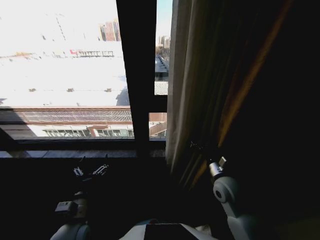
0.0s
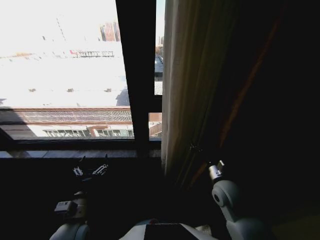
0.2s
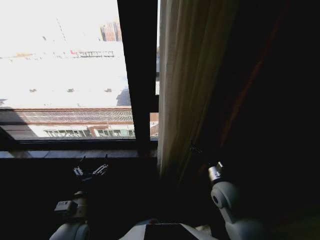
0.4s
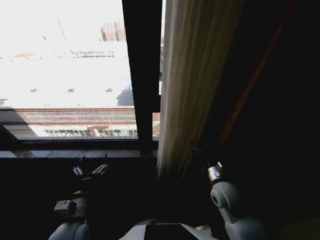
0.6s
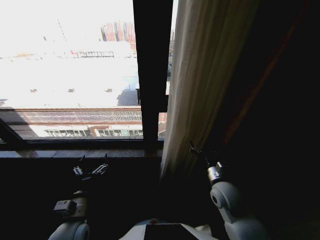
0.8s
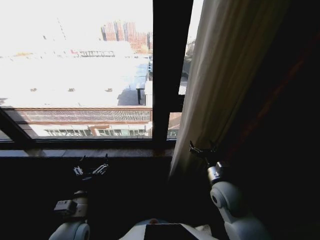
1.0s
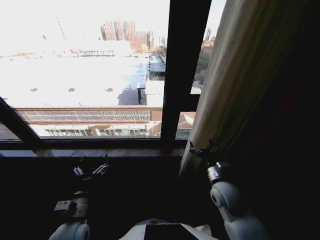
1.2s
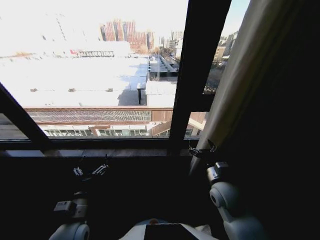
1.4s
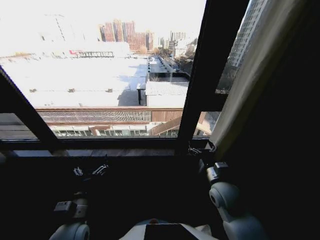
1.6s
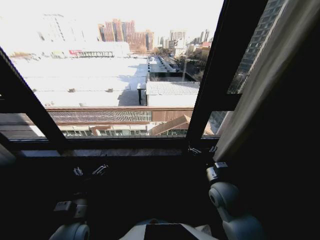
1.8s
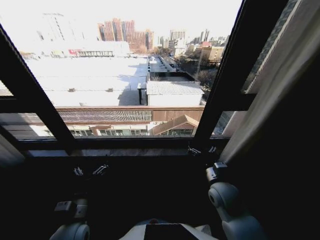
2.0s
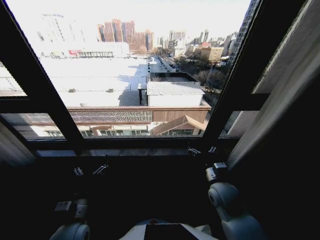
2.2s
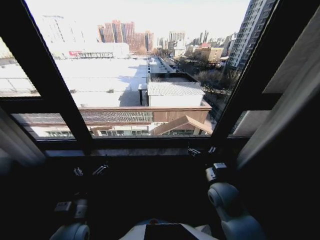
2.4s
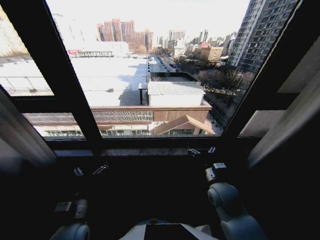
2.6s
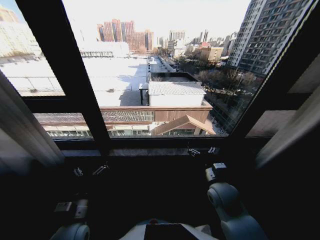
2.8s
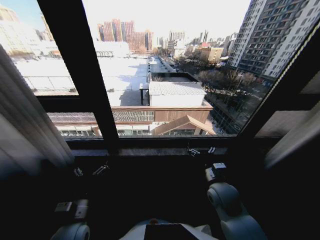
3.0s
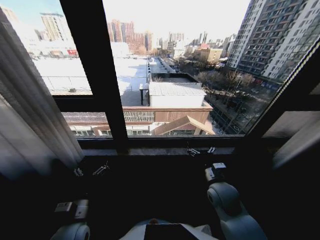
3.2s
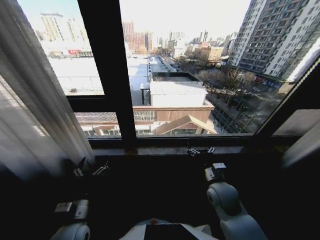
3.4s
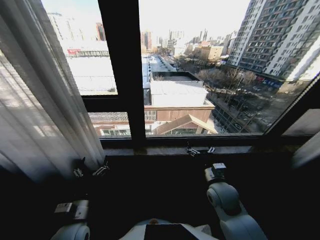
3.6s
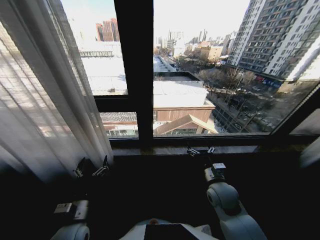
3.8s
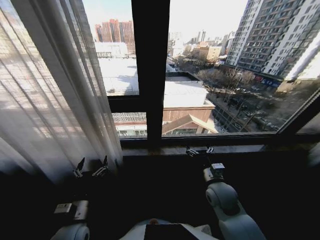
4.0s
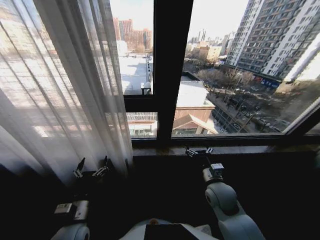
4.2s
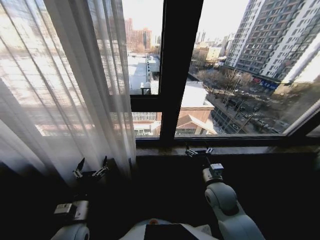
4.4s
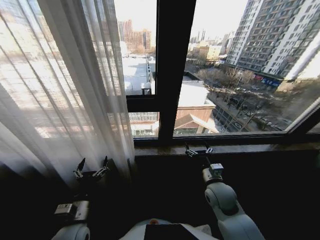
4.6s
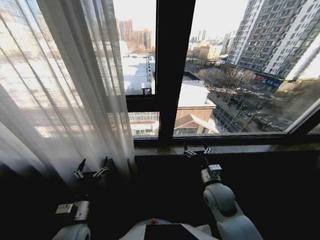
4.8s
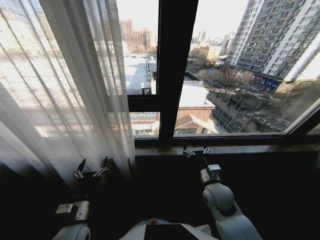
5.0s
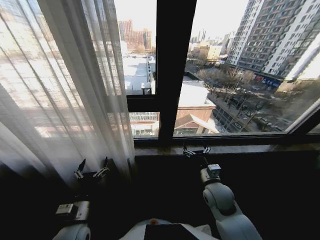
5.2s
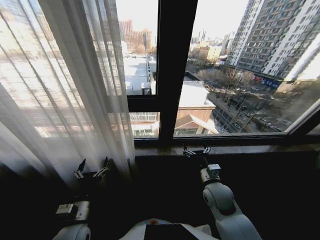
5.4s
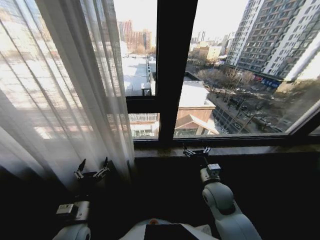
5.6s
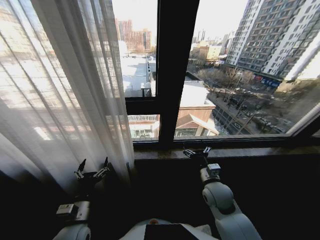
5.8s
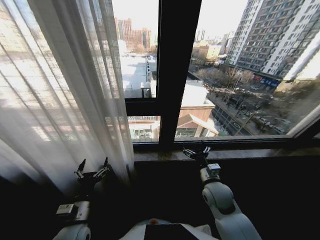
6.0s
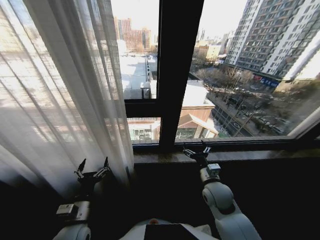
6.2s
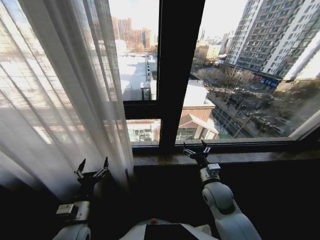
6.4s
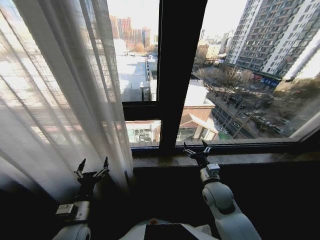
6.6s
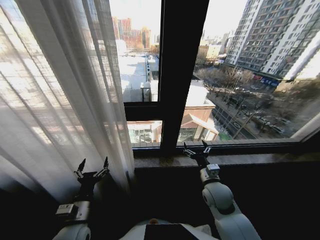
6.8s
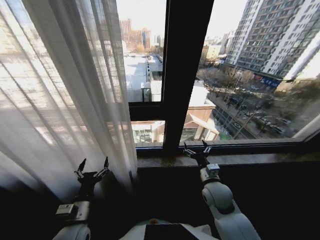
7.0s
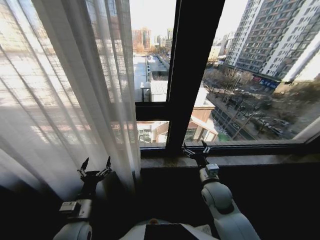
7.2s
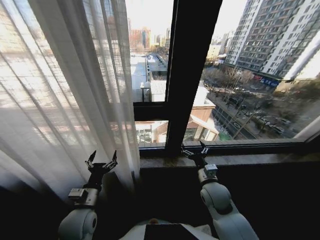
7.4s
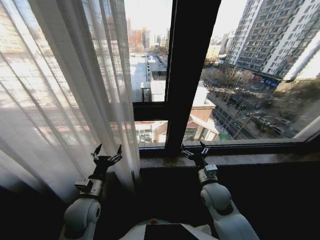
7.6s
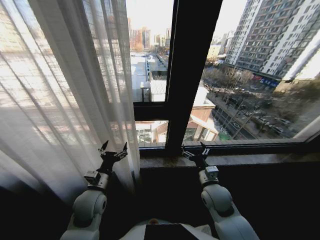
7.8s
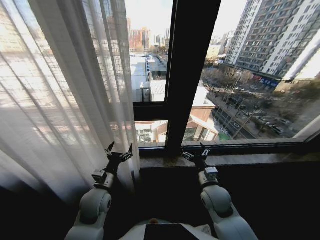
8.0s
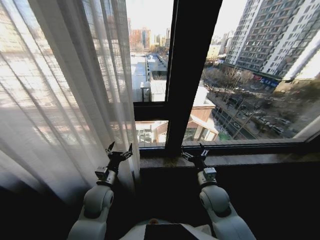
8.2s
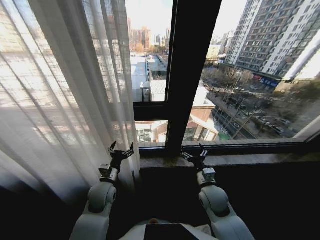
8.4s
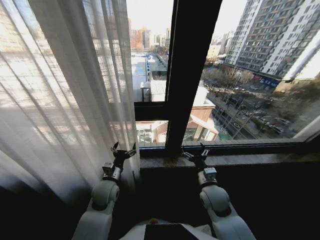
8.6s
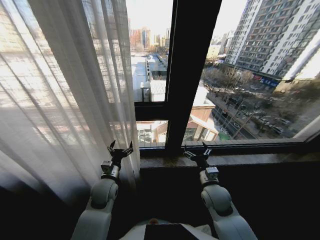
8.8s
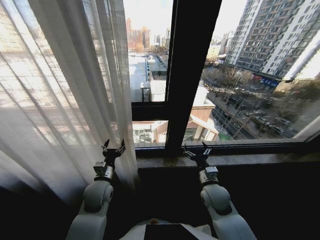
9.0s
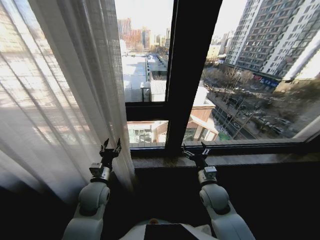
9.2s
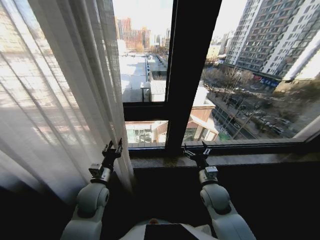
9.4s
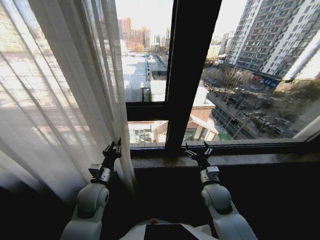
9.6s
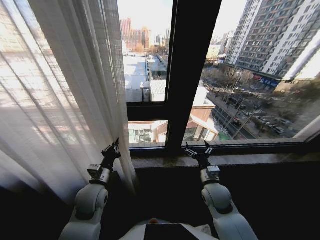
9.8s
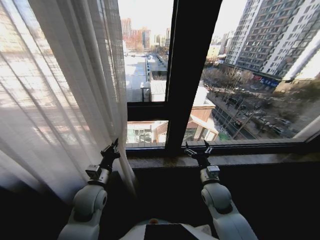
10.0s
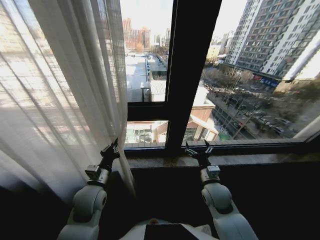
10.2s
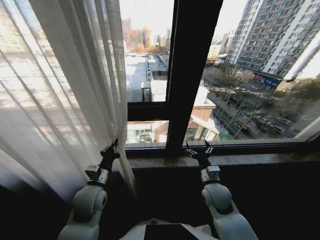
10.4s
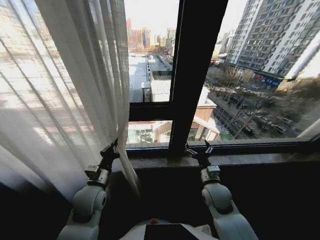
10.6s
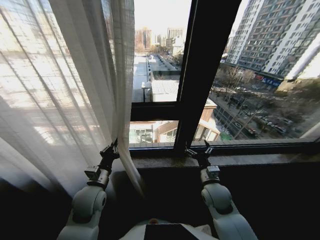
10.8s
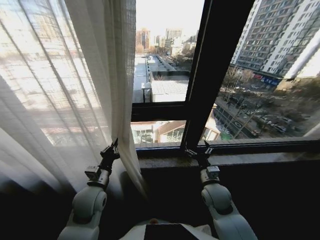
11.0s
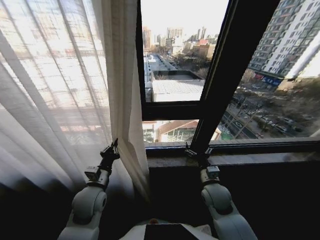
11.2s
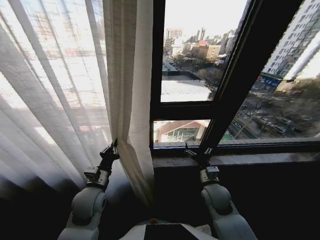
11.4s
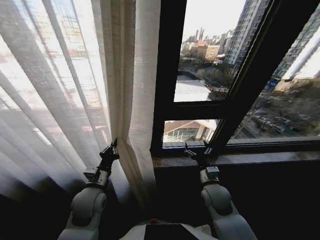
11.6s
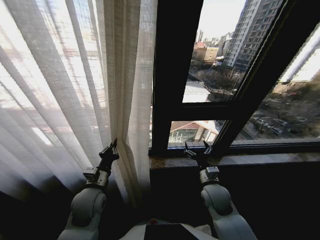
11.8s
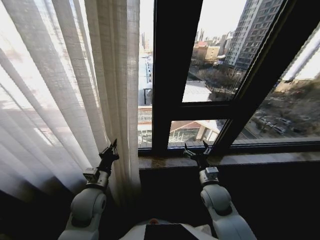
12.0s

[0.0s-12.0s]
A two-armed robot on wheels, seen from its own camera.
Task of the whole recording: Open the curtains by pulling them apart, changing their state from closed to fully open.
6.0s to 7.6s: The left gripper shifts approximately 5 cm forward.
7.6s to 9.0s: The left gripper moves forward, approximately 5 cm.
9.0s to 10.4s: The left gripper closes its fingers.

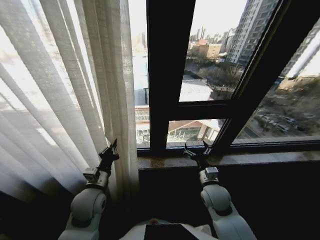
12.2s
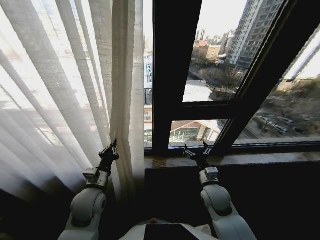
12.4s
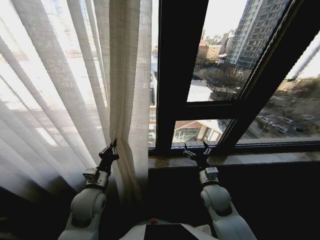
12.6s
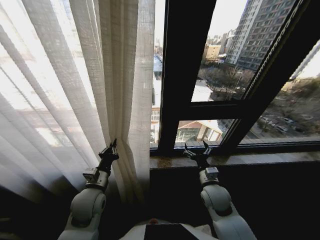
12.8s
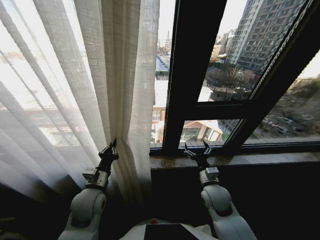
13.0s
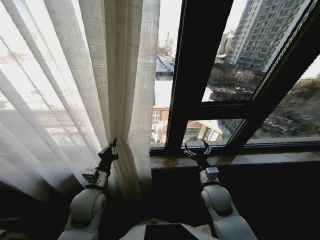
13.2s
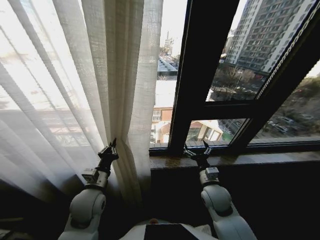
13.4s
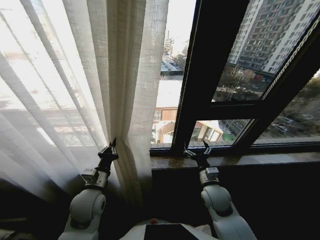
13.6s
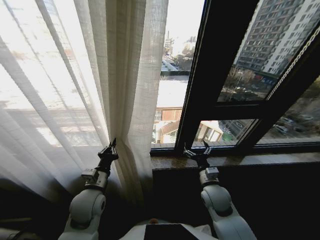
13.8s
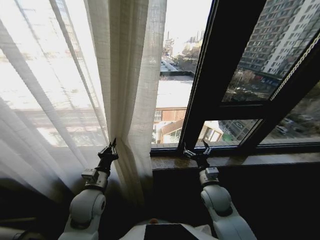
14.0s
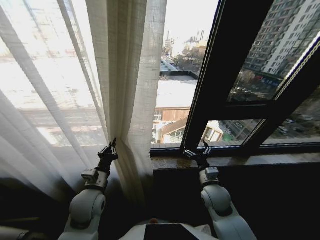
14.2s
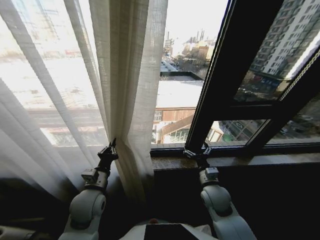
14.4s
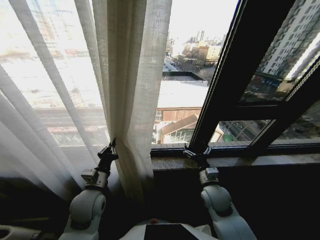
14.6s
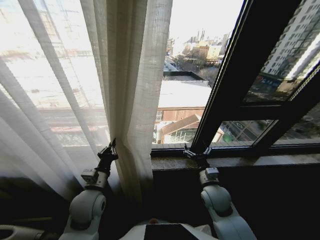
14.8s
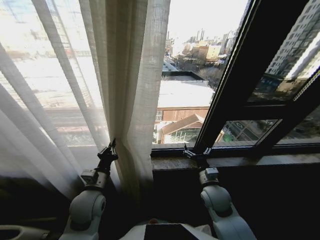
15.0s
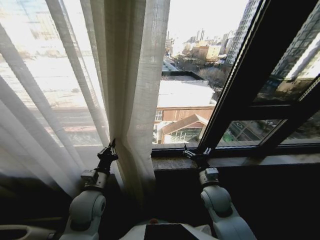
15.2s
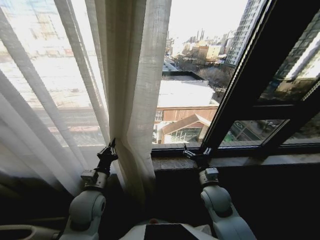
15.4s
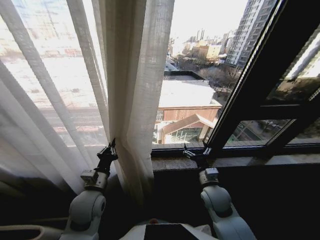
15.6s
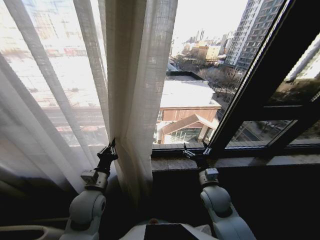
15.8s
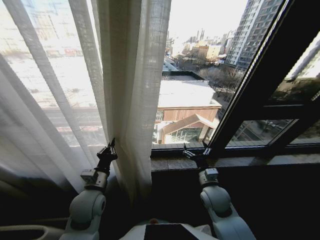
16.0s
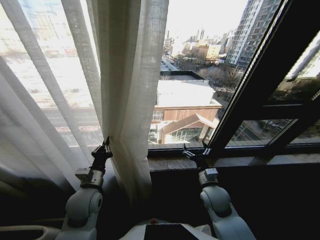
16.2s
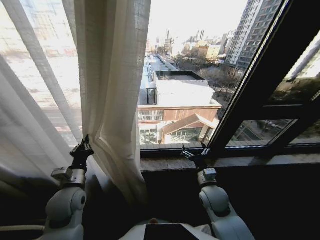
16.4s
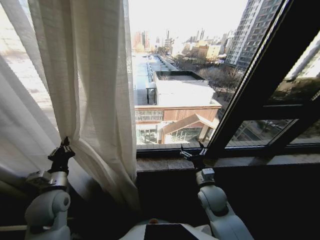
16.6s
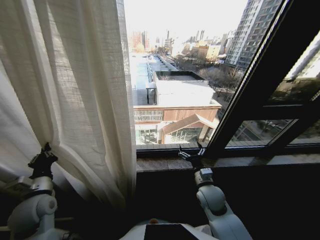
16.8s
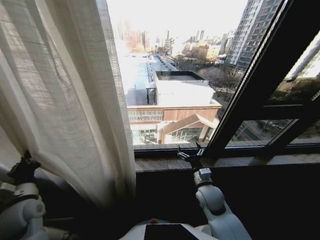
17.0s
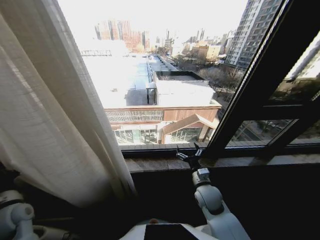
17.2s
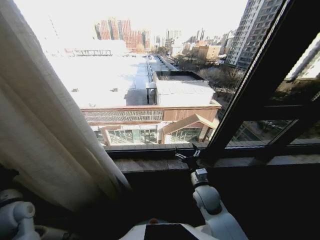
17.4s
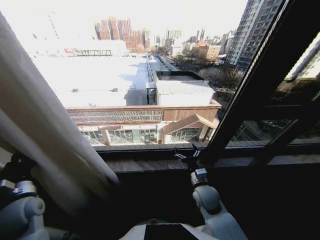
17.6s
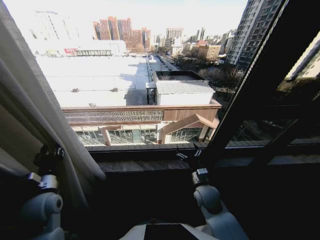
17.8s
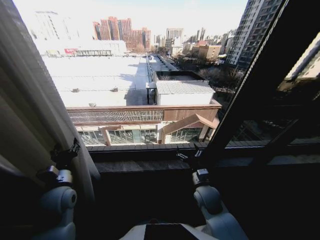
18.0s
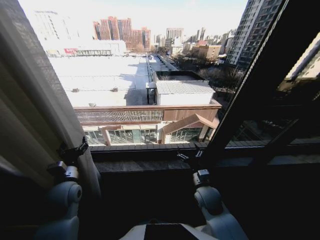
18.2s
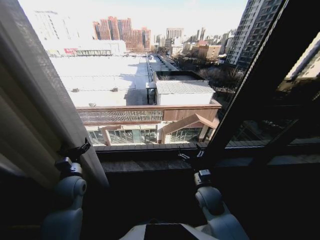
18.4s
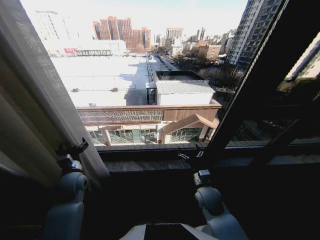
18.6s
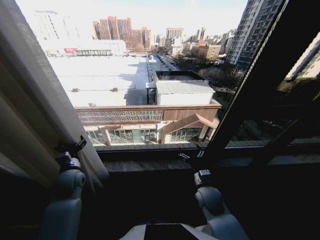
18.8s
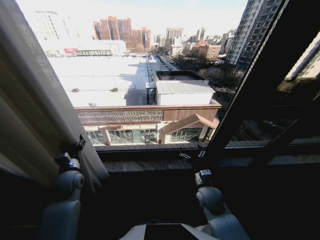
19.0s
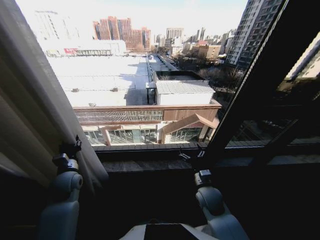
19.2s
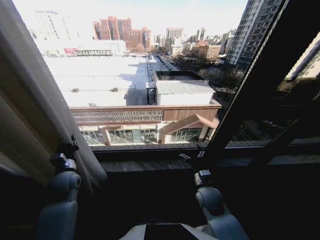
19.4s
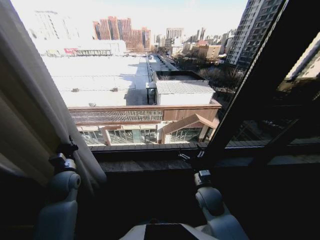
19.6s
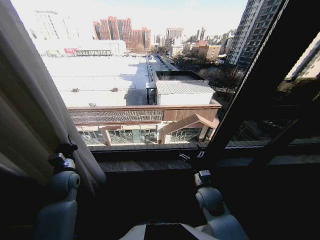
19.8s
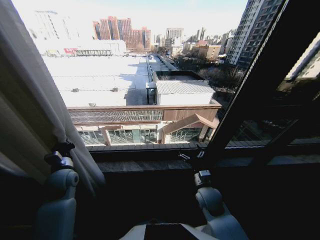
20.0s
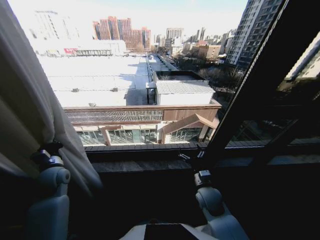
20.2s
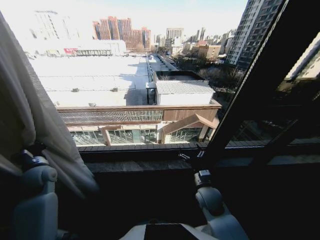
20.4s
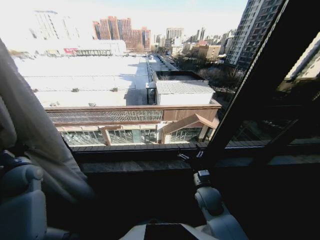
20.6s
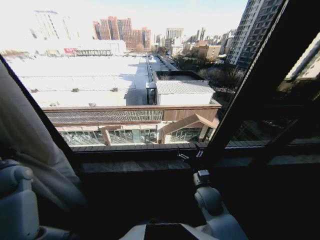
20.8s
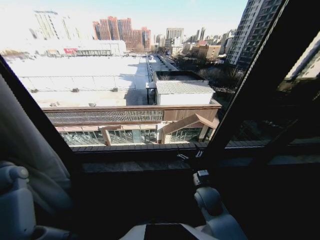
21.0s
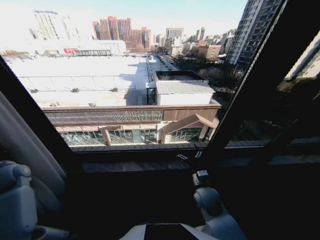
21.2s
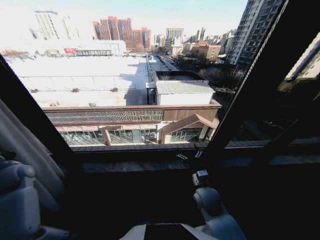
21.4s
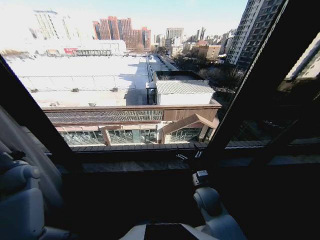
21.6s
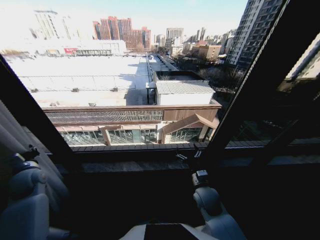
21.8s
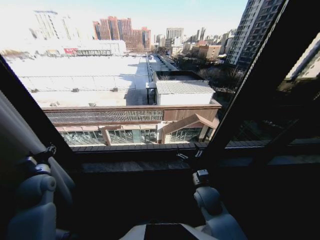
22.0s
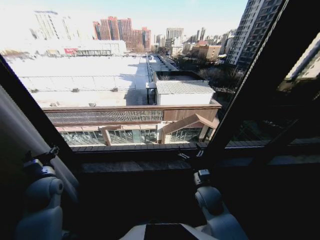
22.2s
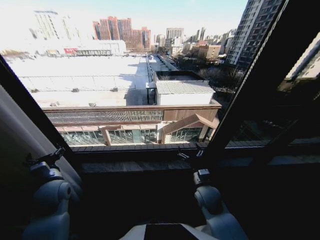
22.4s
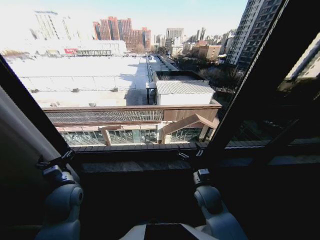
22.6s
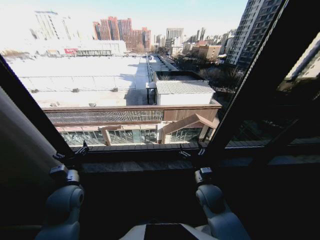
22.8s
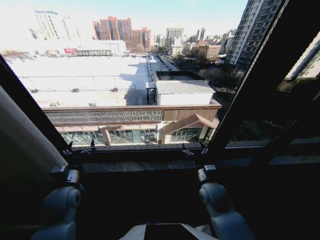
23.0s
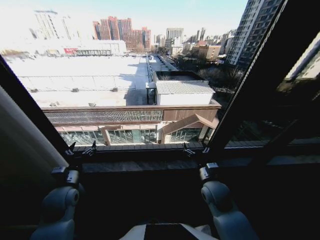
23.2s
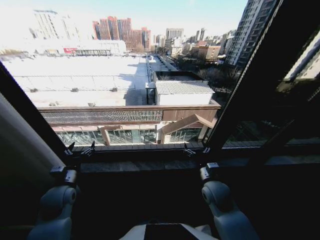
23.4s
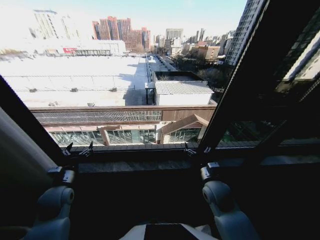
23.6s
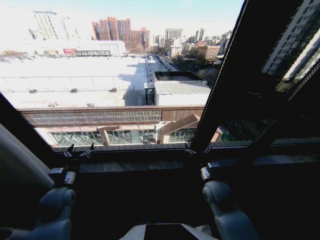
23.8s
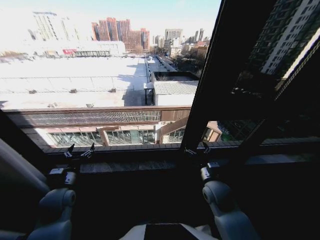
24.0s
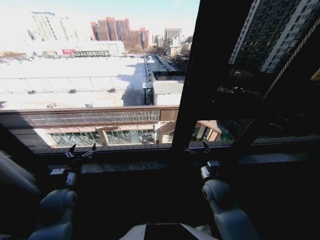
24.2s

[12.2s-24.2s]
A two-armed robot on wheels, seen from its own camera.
Task of the whole recording: Open the curtains by pulling them apart, changing their state from closed to fully open.
15.2s to 16.6s: The left gripper travels to the left by about 10 cm.
16.6s to 18.2s: The left gripper reaches about 15 cm to the left, then returns, and opens.
18.2s to 19.8s: The left gripper shifts approximately 5 cm forward, and closes.
19.8s to 21.2s: The left gripper moves to the left, about 20 cm.
21.2s to 22.6s: The left gripper moves to the right, roughly 25 cm, and opens up.
